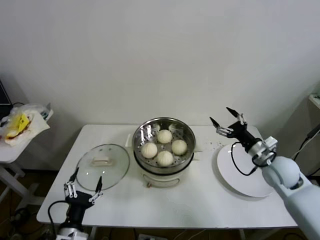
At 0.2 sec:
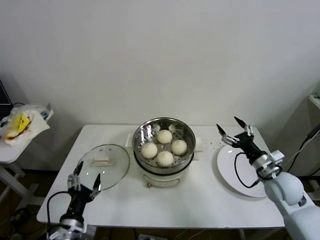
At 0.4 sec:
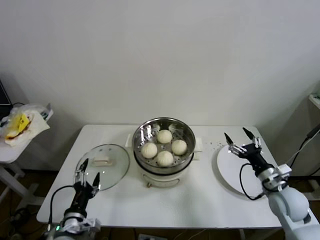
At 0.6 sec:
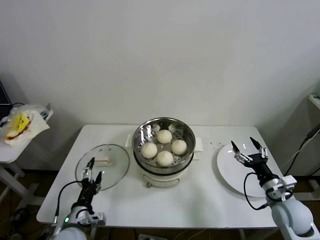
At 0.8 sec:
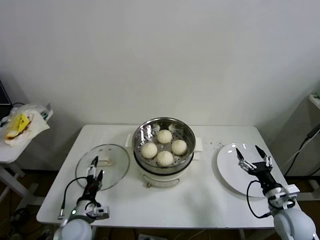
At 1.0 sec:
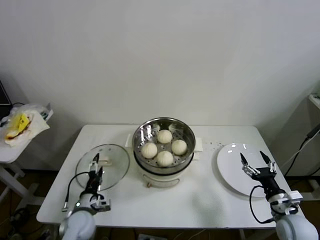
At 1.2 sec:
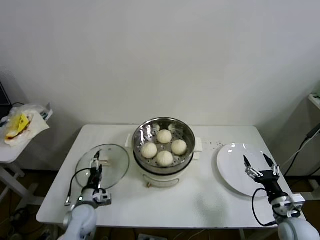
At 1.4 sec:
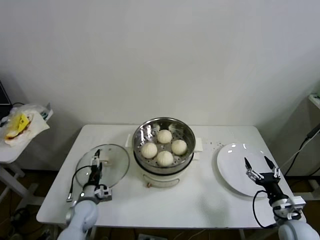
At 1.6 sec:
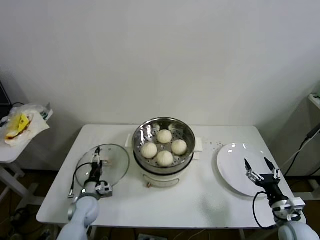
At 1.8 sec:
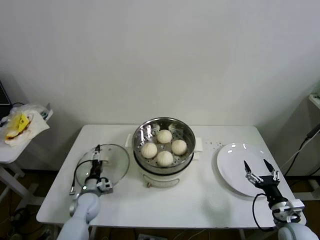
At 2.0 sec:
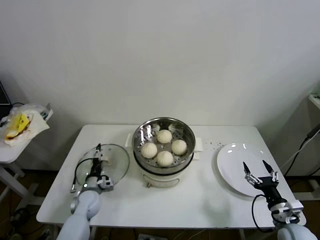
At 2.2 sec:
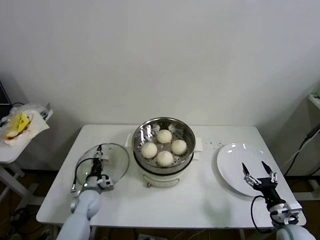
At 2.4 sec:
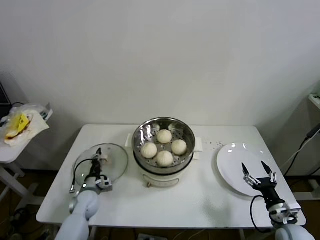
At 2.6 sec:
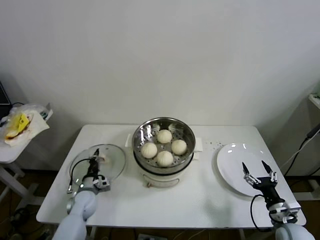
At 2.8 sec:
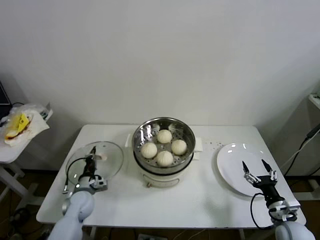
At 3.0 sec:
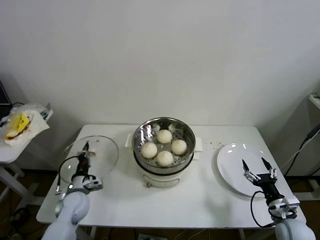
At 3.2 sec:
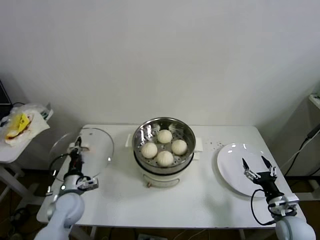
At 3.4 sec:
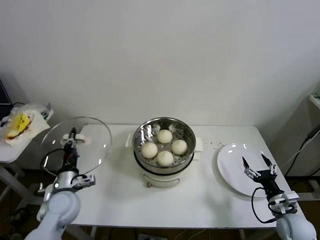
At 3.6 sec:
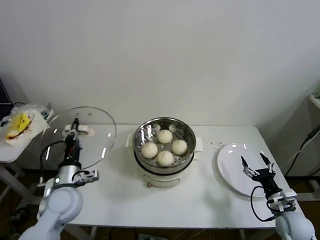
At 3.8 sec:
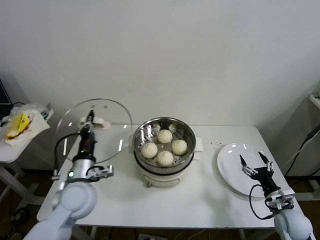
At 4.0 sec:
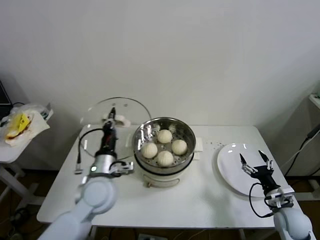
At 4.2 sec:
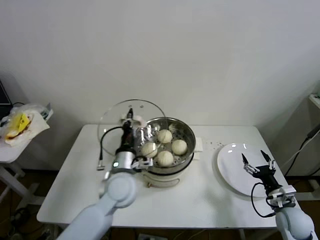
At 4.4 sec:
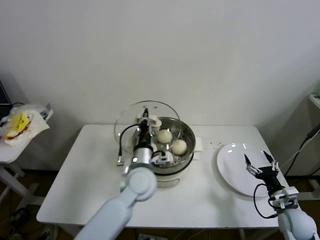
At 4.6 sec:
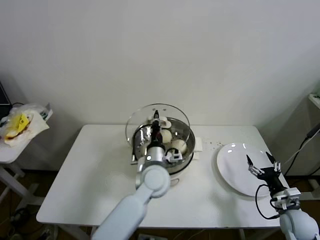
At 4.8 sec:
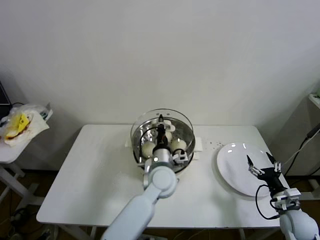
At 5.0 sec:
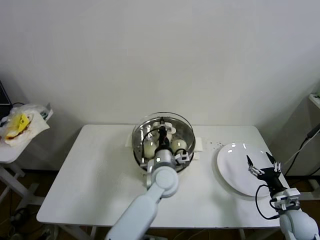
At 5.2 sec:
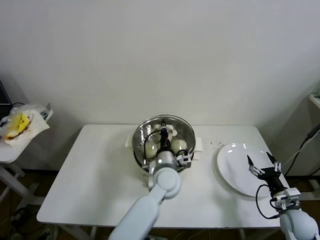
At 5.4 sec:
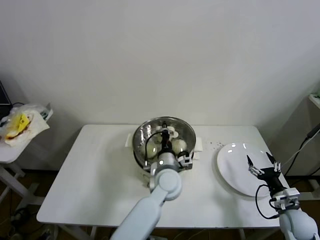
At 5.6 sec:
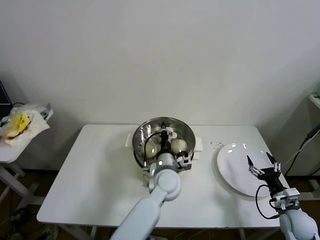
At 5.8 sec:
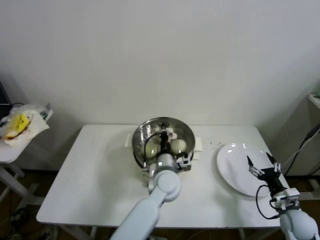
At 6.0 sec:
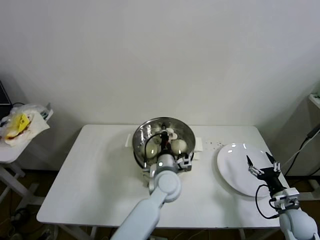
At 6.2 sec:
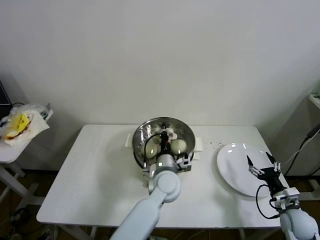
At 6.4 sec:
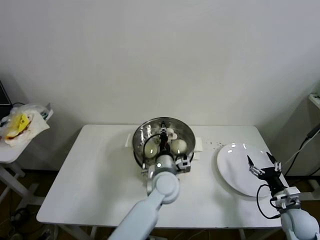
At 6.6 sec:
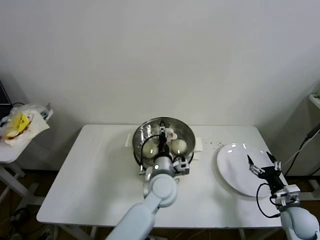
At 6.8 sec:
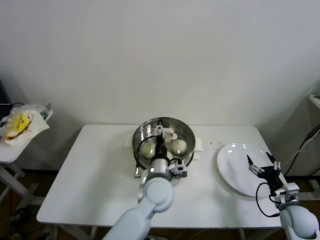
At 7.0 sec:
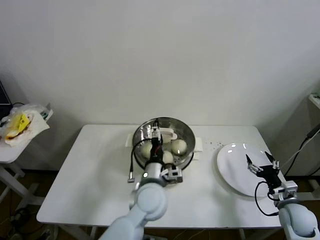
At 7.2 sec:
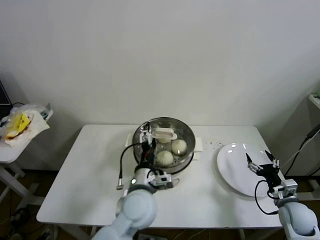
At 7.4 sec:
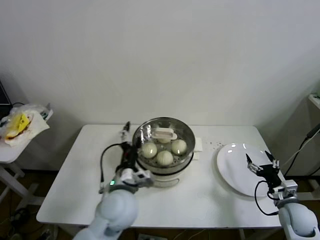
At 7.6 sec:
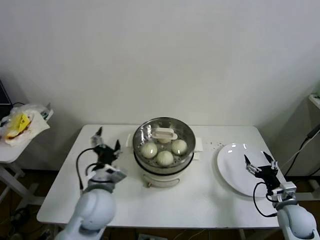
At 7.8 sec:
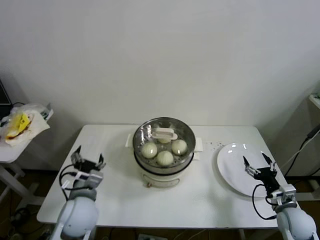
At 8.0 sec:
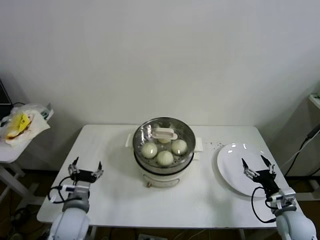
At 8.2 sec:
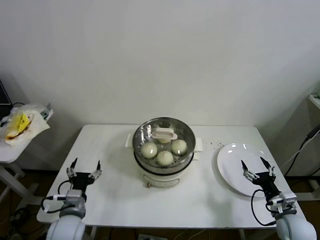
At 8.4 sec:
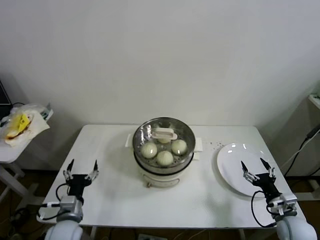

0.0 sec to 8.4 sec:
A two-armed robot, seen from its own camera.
Step, 0.0 sec to 2.4 sec: Grasp the pot lid with left gripper.
Step, 2.8 sec to 6.2 sec: Place the pot lid on the steamer with left gripper.
0.0 sec to 1.4 sec: The right gripper shifts roughly 20 cm backward and downward. Meanwhile the left gripper moves forward and downward, some 20 cm.
1.4 sec to 2.8 sec: The left gripper closes its fingers.
2.8 sec to 4.2 sec: The left gripper is displaced upward and to the right by approximately 25 cm.
4.2 sec to 5.6 sec: The left gripper heads to the right, covering roughly 15 cm.
5.6 sec to 7.0 sec: The left gripper moves backward, about 5 cm, and opens.
7.0 sec to 8.4 sec: The left gripper goes about 25 cm to the left.
